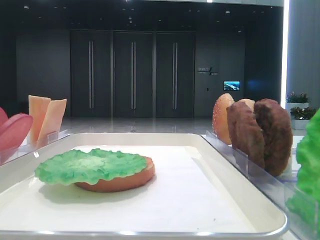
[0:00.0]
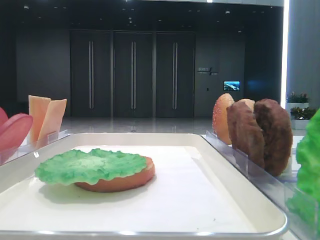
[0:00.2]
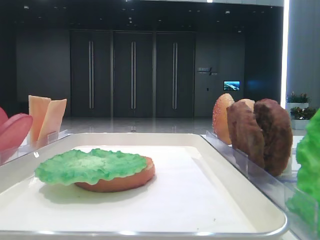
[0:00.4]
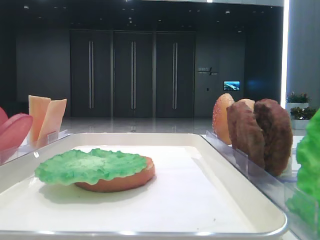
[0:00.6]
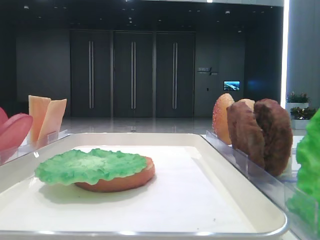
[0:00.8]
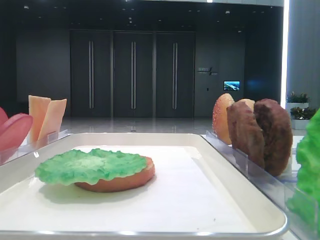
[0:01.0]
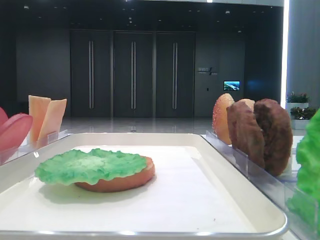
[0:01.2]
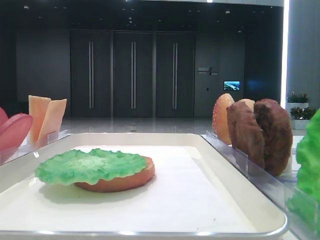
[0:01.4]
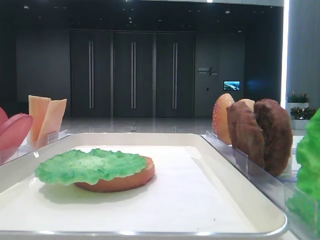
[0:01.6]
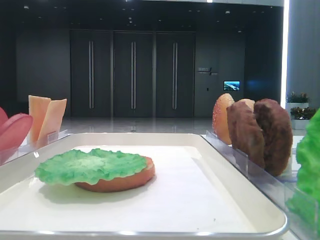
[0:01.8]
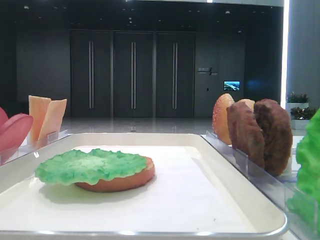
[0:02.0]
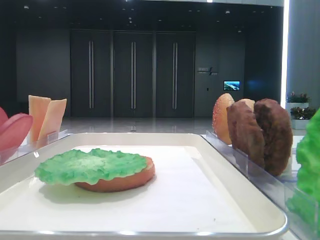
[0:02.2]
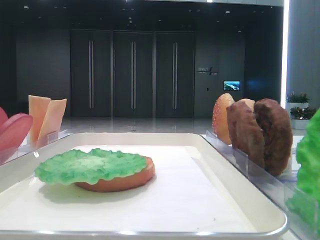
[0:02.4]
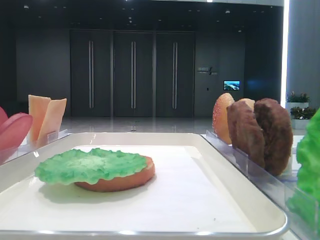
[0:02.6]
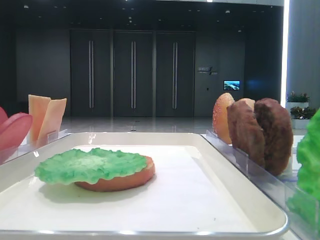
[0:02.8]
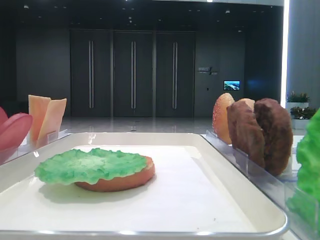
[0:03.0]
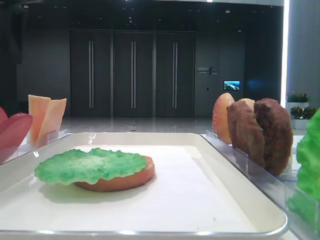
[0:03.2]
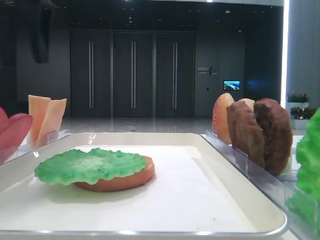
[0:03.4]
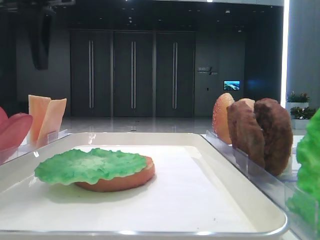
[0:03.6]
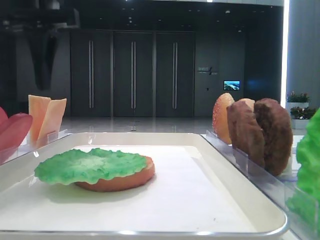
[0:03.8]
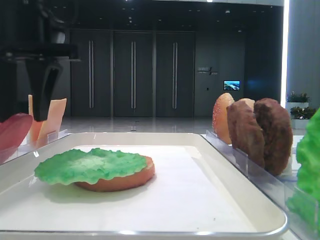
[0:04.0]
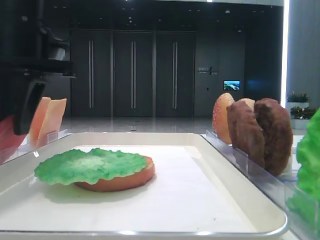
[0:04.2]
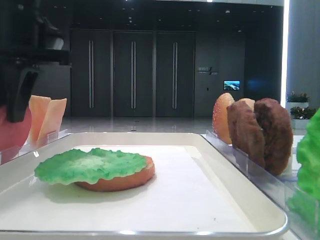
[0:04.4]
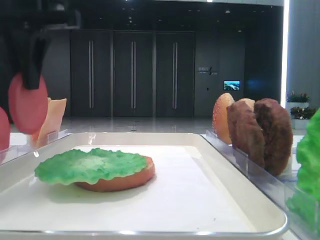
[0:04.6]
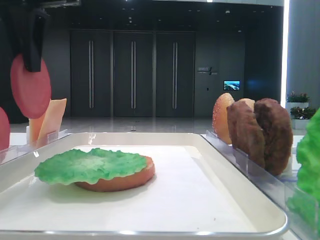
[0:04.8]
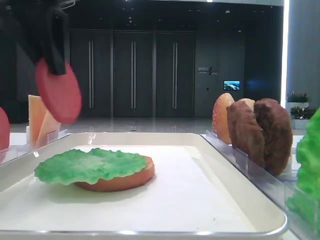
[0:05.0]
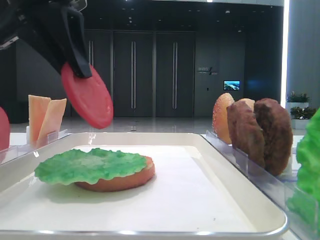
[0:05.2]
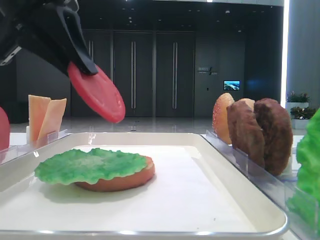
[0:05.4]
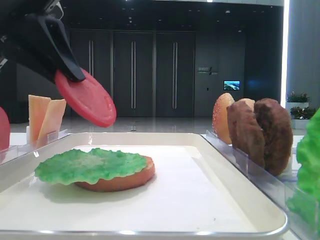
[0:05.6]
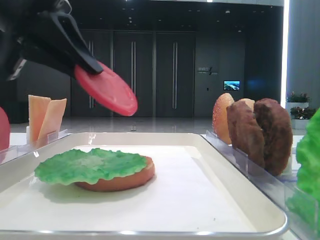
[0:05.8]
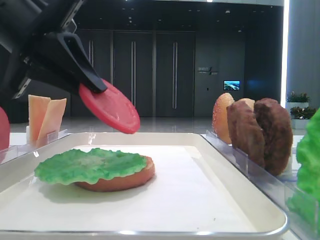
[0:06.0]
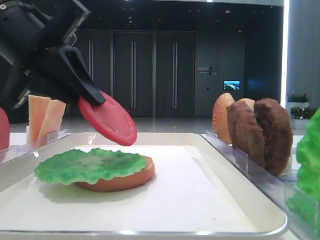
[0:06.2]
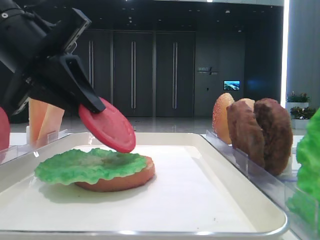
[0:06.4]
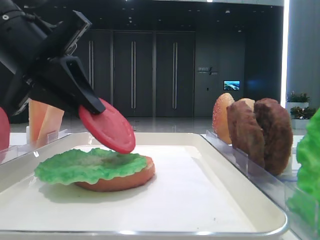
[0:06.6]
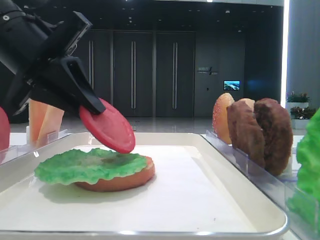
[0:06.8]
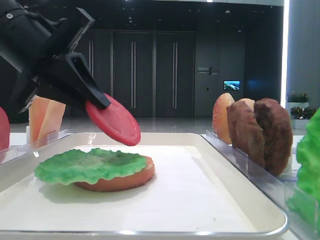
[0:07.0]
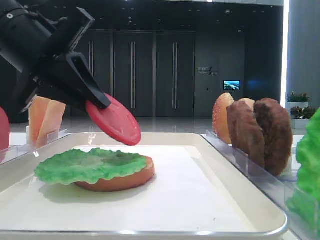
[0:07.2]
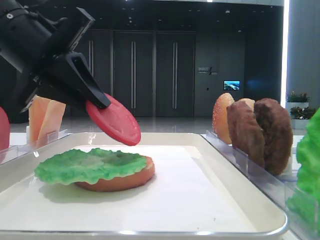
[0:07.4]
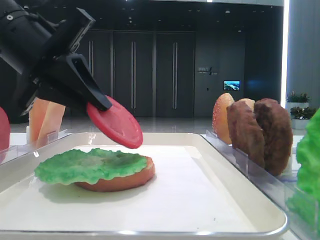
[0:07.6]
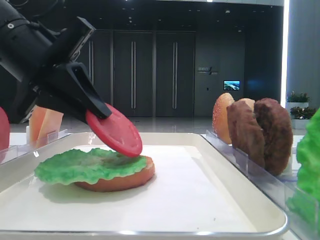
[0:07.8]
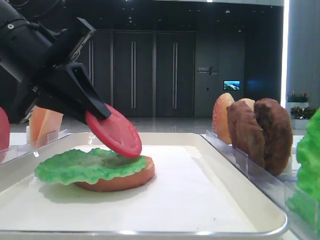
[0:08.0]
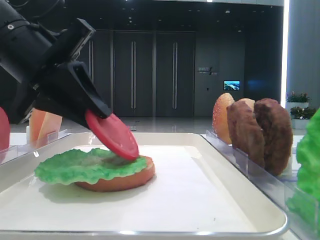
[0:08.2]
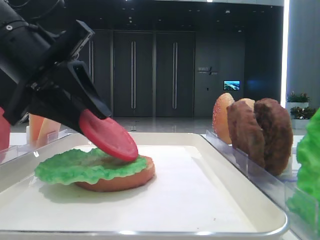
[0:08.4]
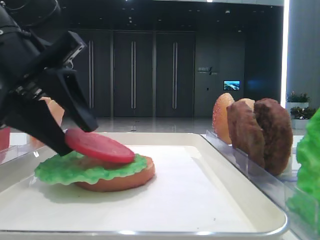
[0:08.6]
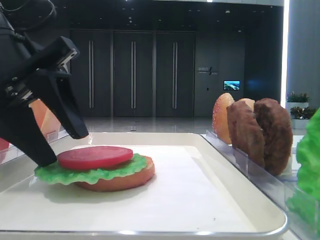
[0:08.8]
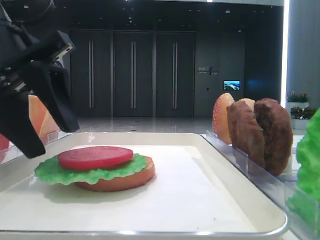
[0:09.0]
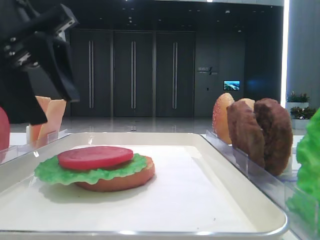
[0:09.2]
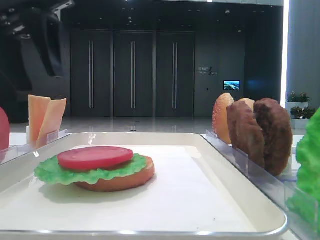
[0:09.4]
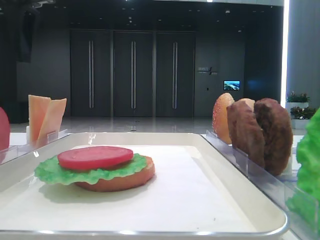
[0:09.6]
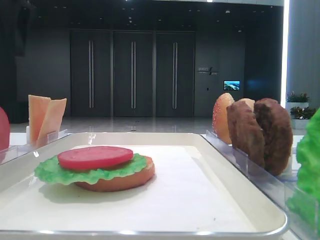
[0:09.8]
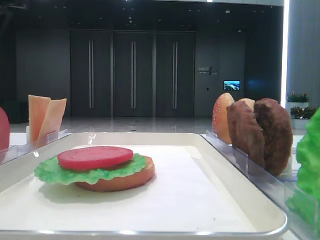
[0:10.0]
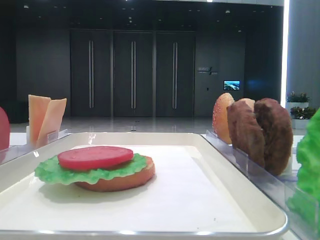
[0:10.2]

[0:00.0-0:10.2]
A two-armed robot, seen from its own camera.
Step, 0:00.0 to 0:04.2: Pick up the tomato slice with the left hand.
Step, 0:04.4 to 0:08.6: Place the tomato slice on the lettuce leaf with the left hand.
0:03.0 to 0:04.4: The left gripper shifts roughly 15 cm to the right and downward, and closes up.
0:05.8 to 0:07.2: There are only small adjustments of the grippers.
0:07.2 to 0:08.8: The left gripper opens up.
0:08.8 to 0:10.2: The left gripper moves upward, to the left and forward, approximately 20 cm.
